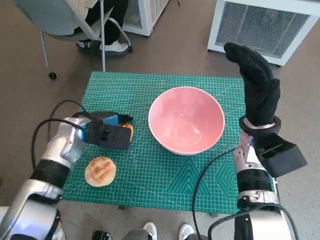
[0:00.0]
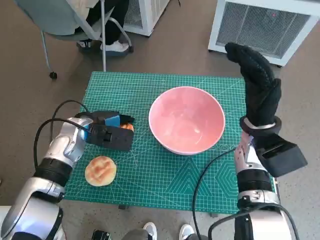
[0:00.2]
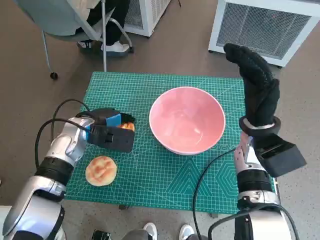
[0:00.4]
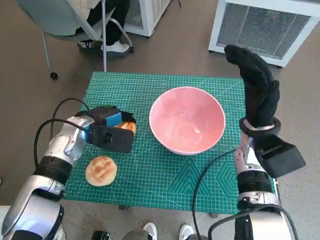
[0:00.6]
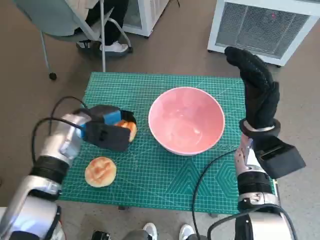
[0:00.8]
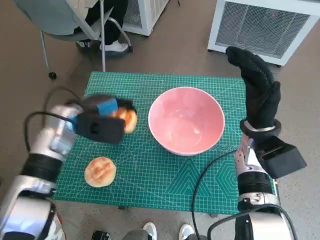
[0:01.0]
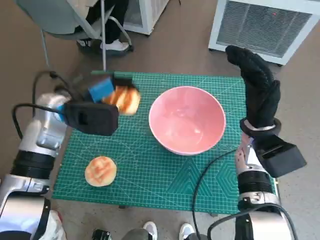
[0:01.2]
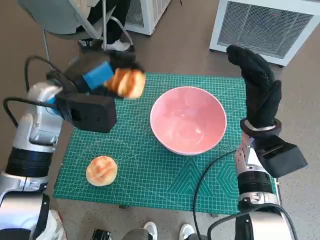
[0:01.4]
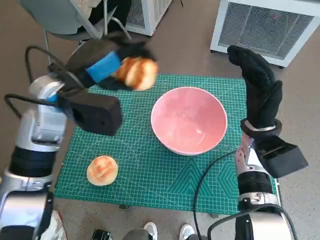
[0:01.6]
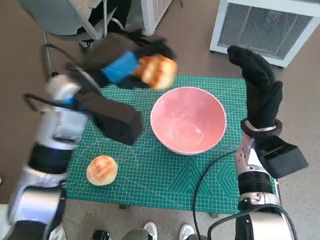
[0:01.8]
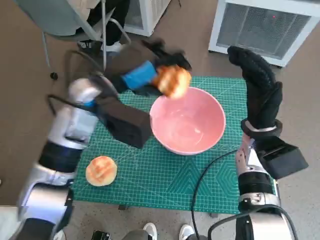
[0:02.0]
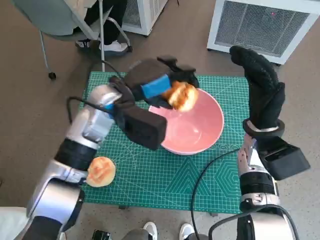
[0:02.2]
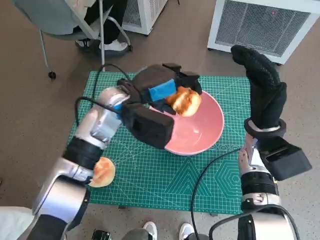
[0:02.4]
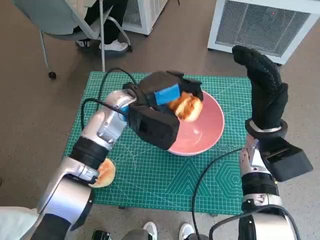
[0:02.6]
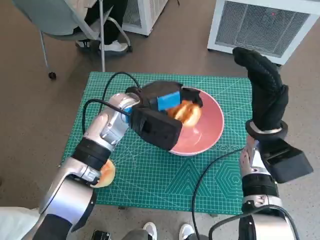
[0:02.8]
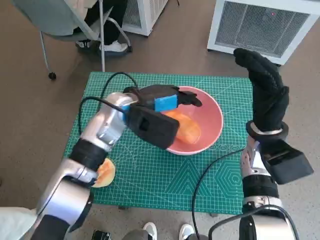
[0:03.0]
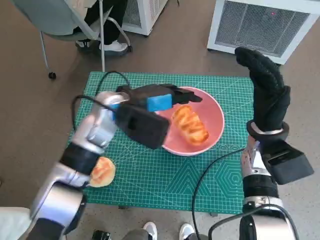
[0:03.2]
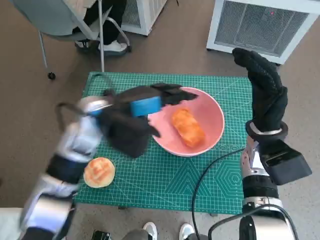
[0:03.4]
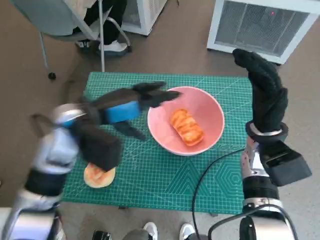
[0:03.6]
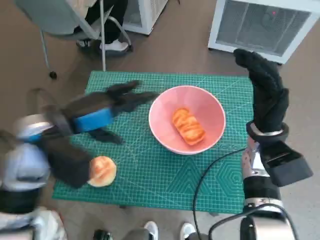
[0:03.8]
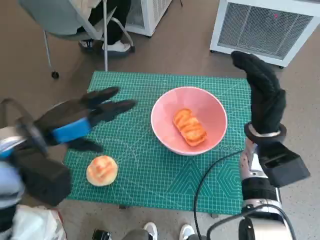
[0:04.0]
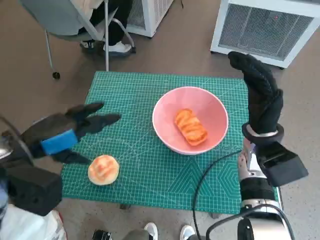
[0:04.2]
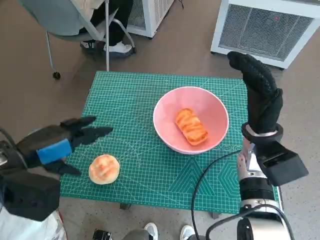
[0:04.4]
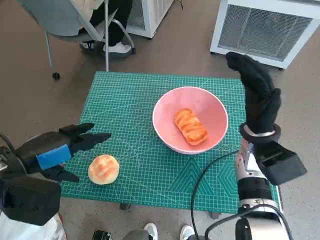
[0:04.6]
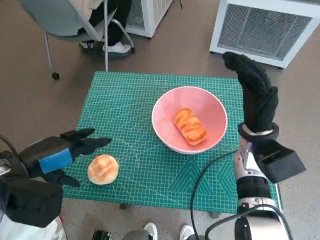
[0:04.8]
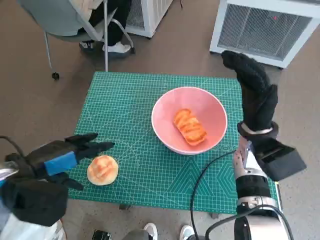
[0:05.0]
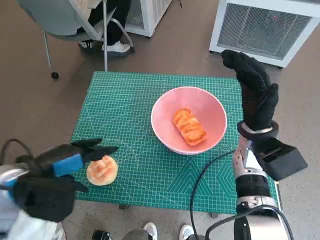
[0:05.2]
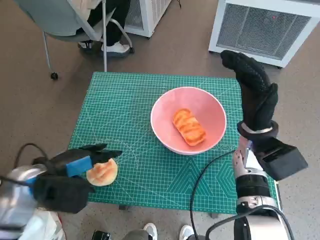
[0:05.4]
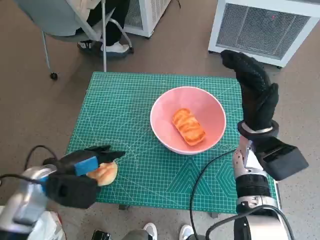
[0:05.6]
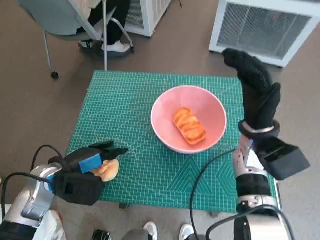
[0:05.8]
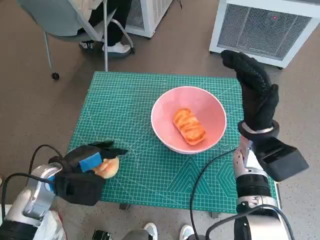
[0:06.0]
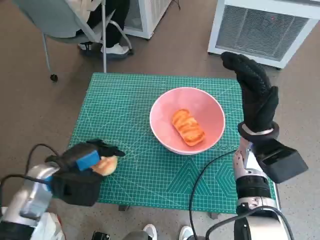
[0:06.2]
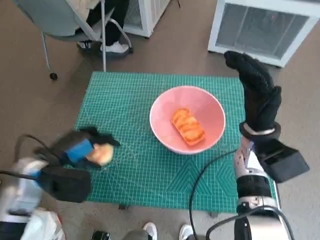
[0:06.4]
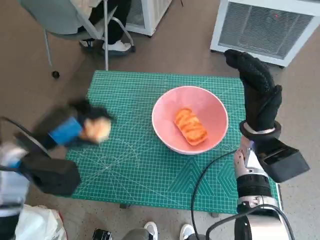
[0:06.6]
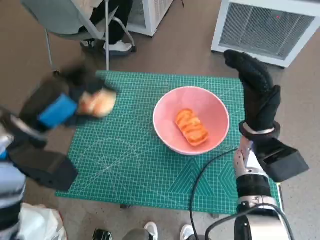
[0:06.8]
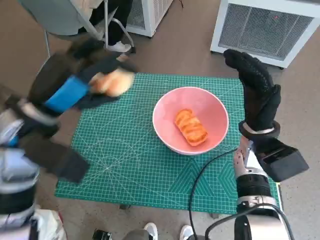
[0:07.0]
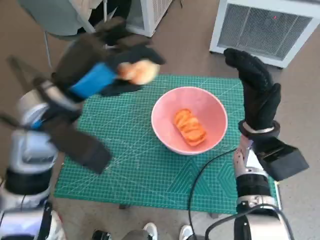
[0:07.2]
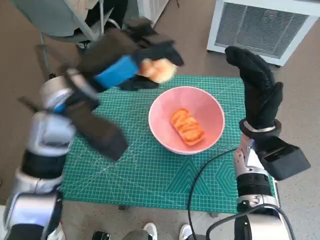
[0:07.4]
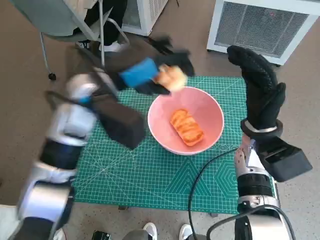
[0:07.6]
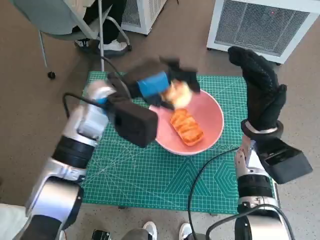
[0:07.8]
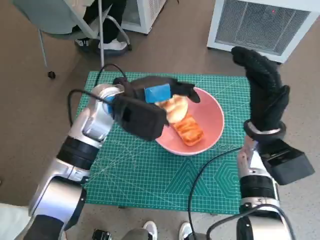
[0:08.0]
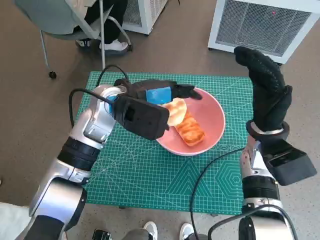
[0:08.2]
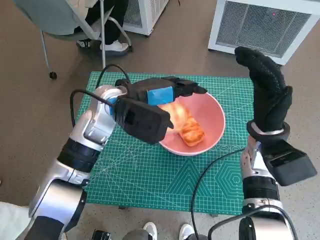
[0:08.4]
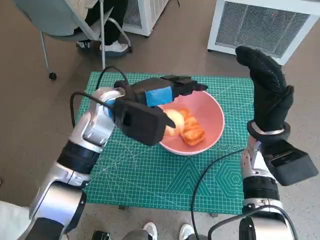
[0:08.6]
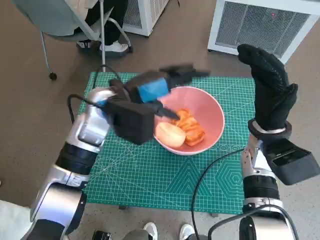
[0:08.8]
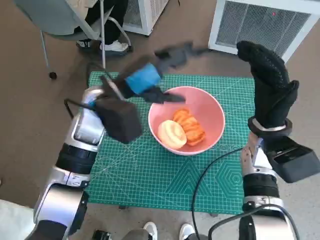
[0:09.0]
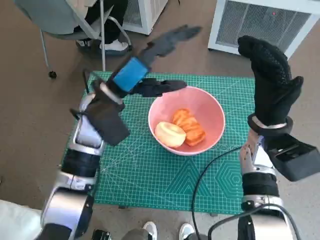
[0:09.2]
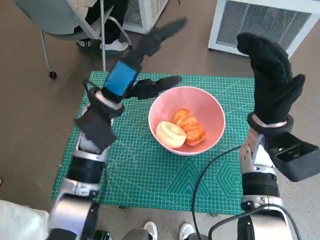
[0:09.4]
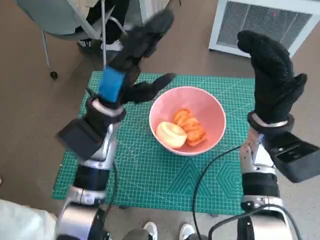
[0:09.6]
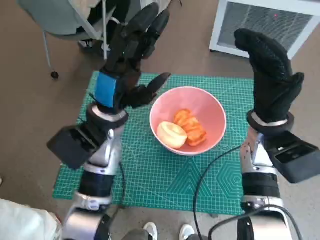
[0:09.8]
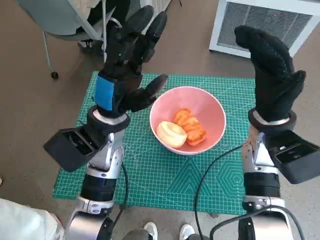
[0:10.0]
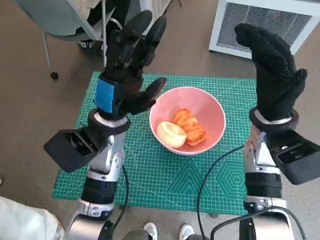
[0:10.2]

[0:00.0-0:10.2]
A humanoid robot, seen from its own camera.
Task of the whole recording: Push the bowl to the center of the table and put the bread into the bowl.
Step, 0:00.6 to 0:03.6: Place the long bread in pink bowl with left hand.
Step, 0:03.8 to 0:06.0: Grasp the round bread with left hand.
Step, 0:06.2 to 0:09.0: Place the round bread in pink bowl with left hand.
0:00.0 to 0:01.4: The left hand goes roughly 10 cm upward.
0:01.4 to 0:03.0: The left hand moves to the right and downward, approximately 10 cm.
0:03.0 to 0:04.4: The left hand is displaced to the left and backward by about 20 cm.
0:04.4 to 0:05.8: The left hand travels downward by roughly 10 cm.
0:05.8 to 0:07.2: The left hand goes approximately 20 cm upward and to the right.
0:07.2 to 0:08.8: The left hand goes approximately 10 cm forward, to the right and downward.
0:08.8 to 0:10.2: The left hand ends up some 5 cm from where it was.

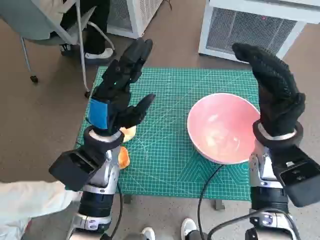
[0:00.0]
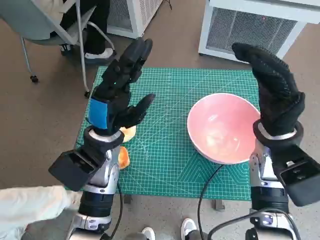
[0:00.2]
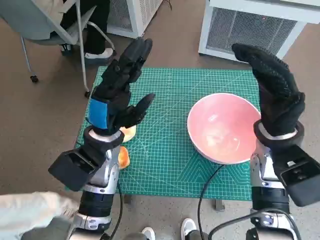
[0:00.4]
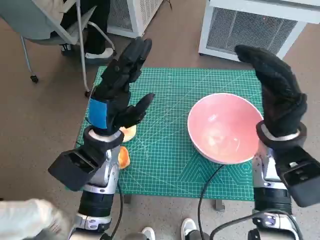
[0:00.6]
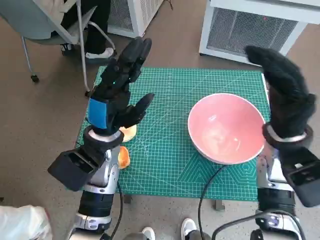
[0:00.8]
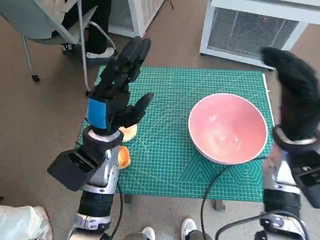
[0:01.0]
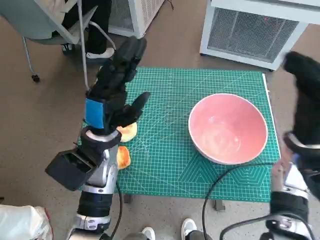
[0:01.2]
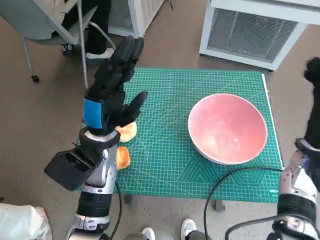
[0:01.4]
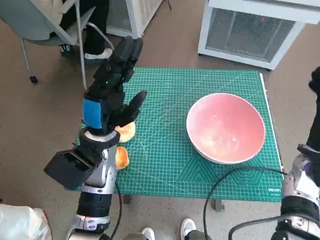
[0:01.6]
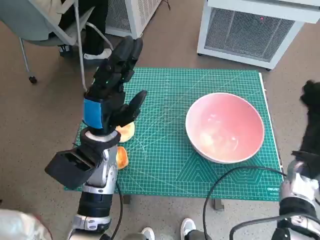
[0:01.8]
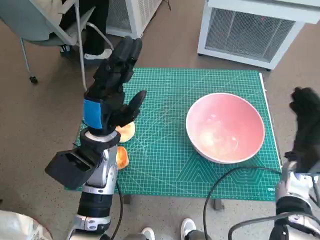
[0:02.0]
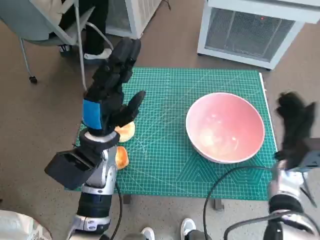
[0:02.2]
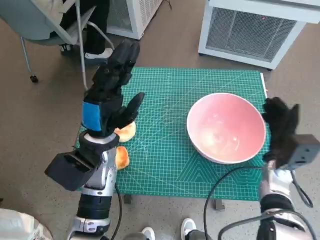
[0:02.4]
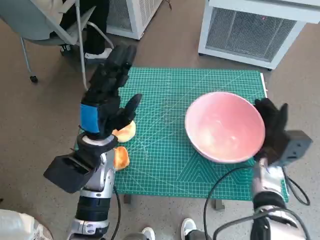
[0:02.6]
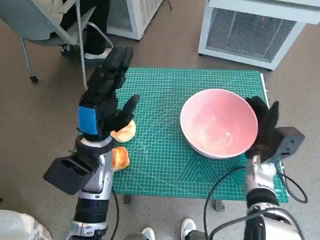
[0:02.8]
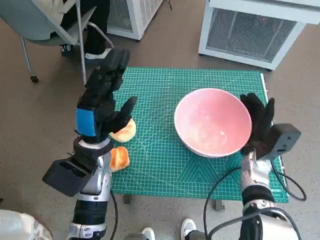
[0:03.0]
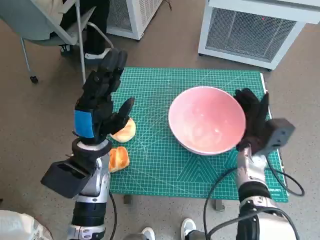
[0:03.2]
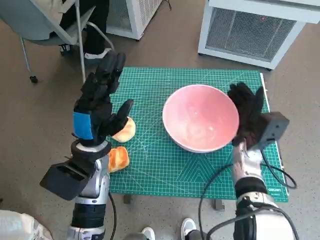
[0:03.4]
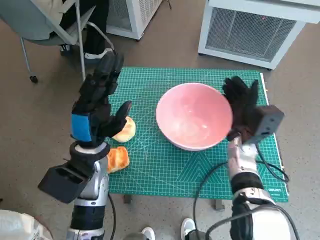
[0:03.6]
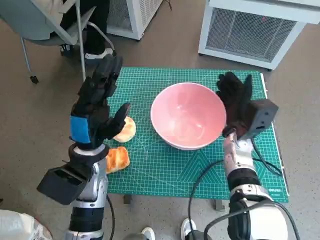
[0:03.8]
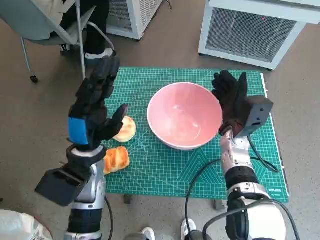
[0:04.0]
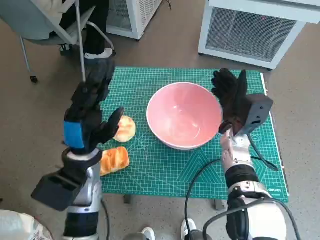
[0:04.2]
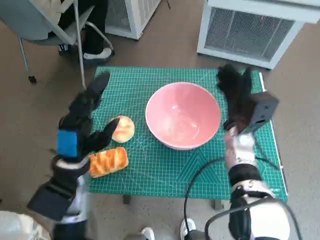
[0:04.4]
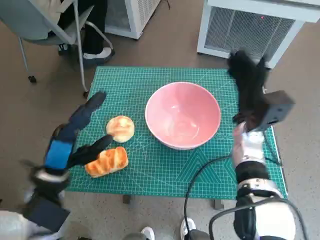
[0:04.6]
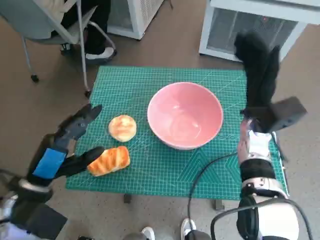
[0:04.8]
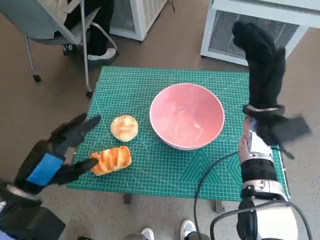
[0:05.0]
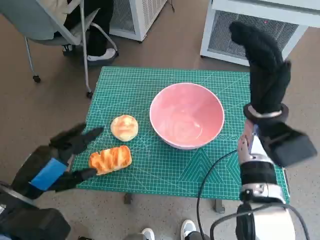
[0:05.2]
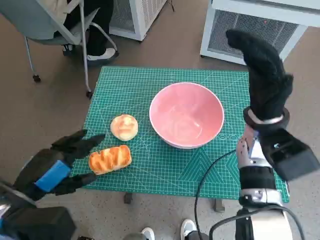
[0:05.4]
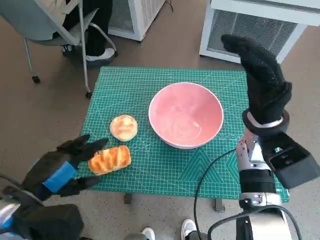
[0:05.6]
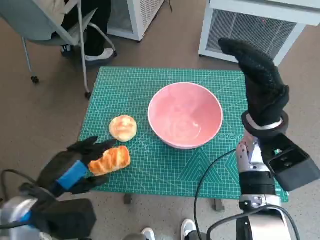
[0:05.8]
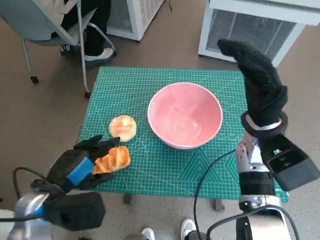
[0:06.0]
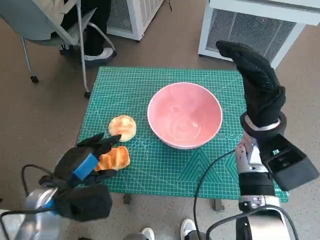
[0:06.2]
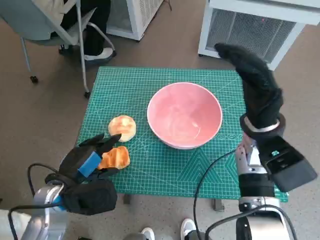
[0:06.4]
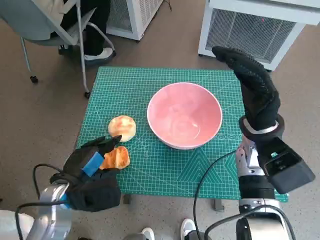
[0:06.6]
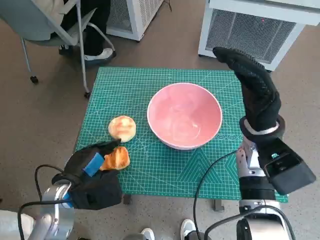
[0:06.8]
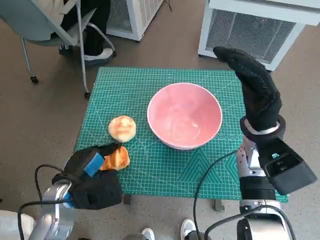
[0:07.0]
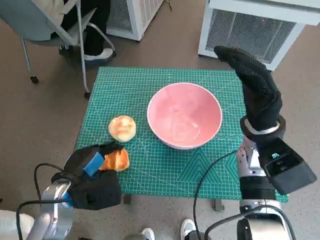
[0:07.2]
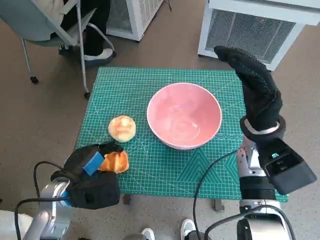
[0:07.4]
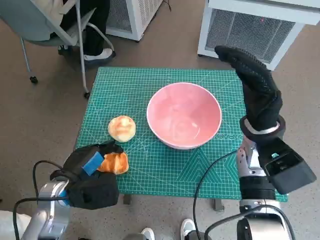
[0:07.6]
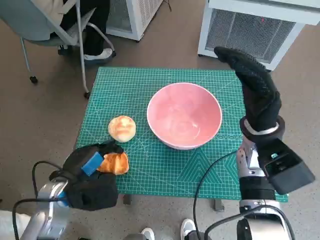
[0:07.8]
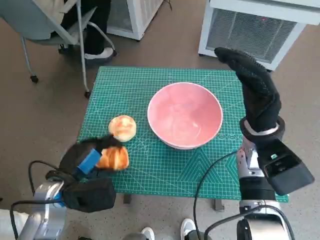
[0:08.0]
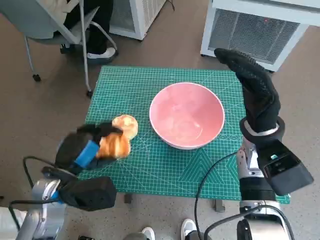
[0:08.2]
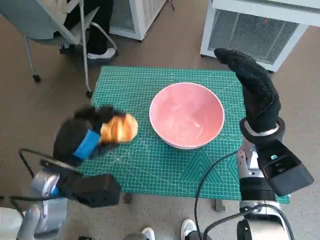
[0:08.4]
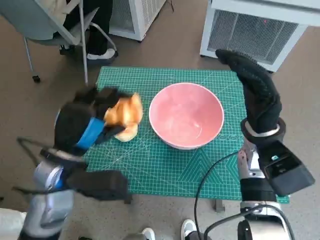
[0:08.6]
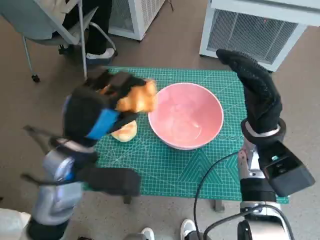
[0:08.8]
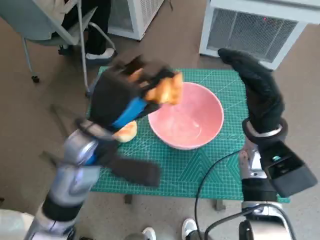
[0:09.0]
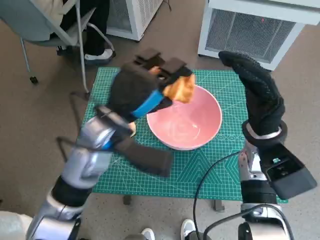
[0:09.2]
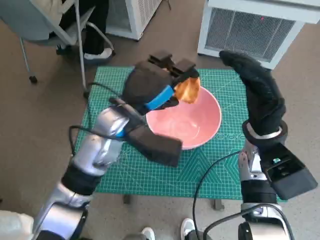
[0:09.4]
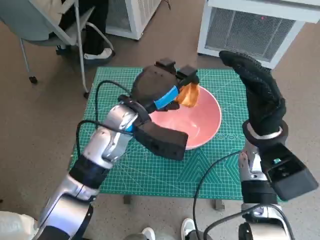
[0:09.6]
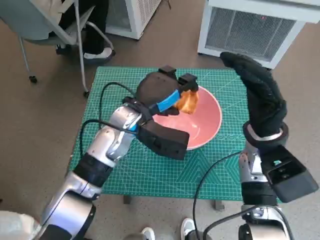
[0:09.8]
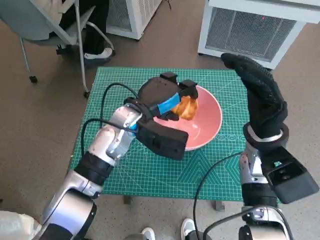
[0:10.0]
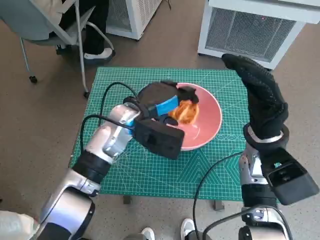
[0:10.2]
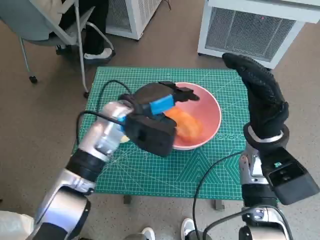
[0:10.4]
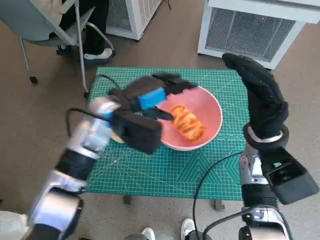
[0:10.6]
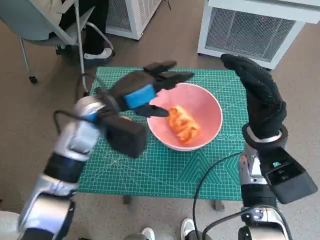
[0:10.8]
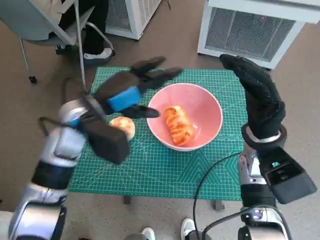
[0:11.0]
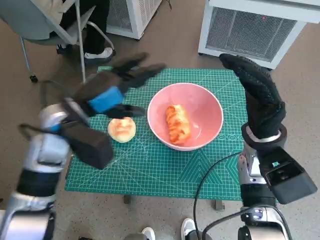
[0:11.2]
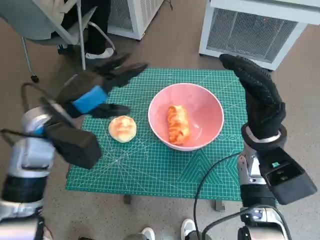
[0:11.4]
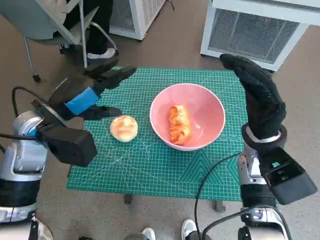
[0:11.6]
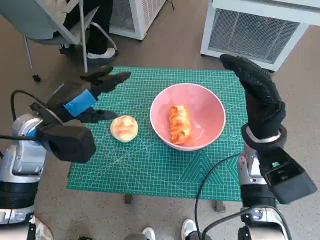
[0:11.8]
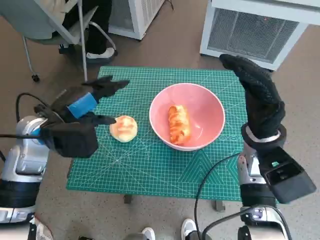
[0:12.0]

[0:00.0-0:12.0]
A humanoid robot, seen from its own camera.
Task of the whole recording: Push the bowl to the center of the table and put the bread into the bowl.
Step, 0:00.0 to 0:04.4: Move the pink bowl to the center of table with right hand.
Step, 0:04.6 to 0:07.2: Grasp the long bread with left hand.
Step, 0:07.4 to 0:10.6: Place the long bread in pink bowl with left hand.
0:01.6 to 0:03.0: The right hand goes approximately 10 cm to the left and downward.
0:03.0 to 0:04.4: The left hand ends up about 5 cm from where it was. The right hand is displaced to the left and upward by approximately 5 cm.
0:04.4 to 0:06.0: The right hand moves upward, about 10 cm, while the left hand shifts roughly 5 cm backward.
0:06.0 to 0:07.6: The left hand ends up roughly 5 cm from where it was.
0:07.6 to 0:09.0: The left hand travels upward and to the right by about 15 cm.
0:09.0 to 0:10.4: The left hand heads forward, covering about 10 cm.
0:10.4 to 0:12.0: The left hand moves to the left, roughly 15 cm.
